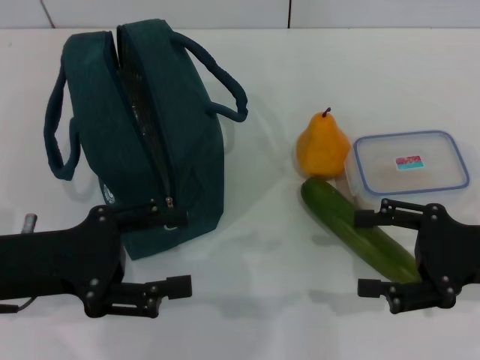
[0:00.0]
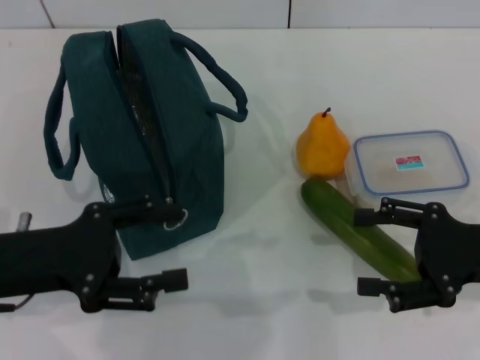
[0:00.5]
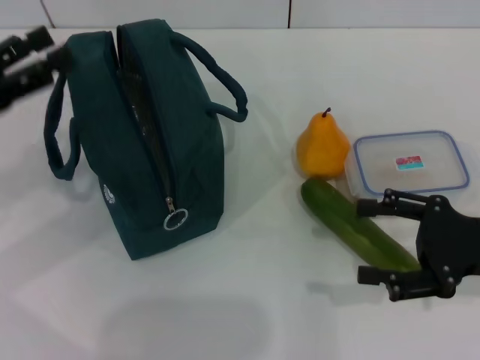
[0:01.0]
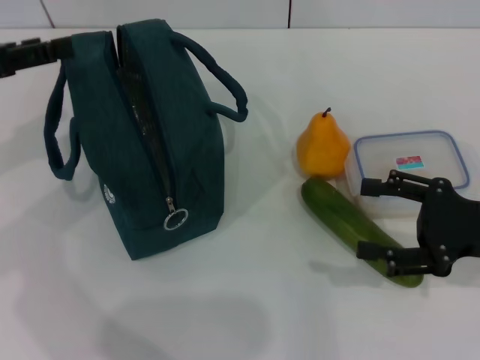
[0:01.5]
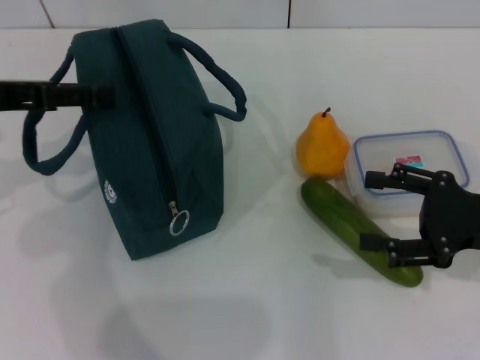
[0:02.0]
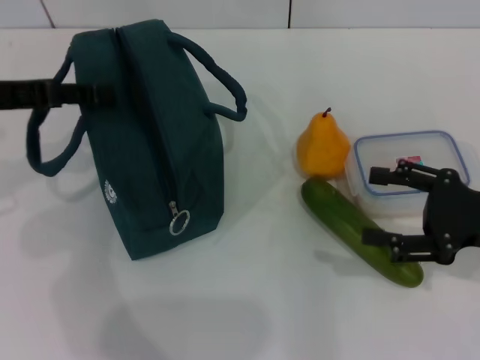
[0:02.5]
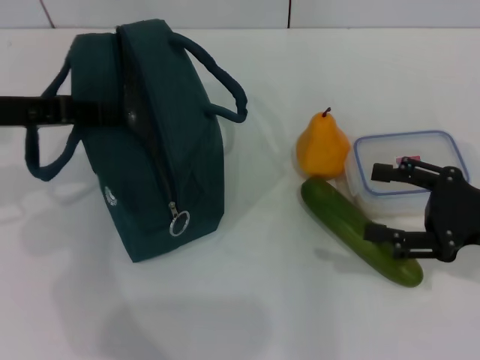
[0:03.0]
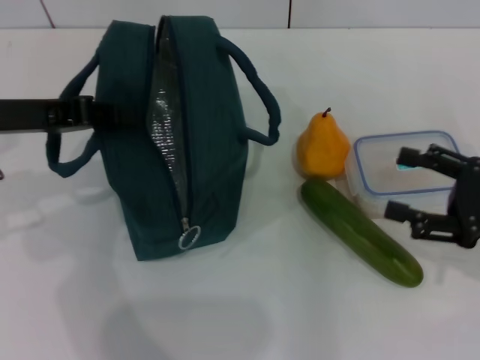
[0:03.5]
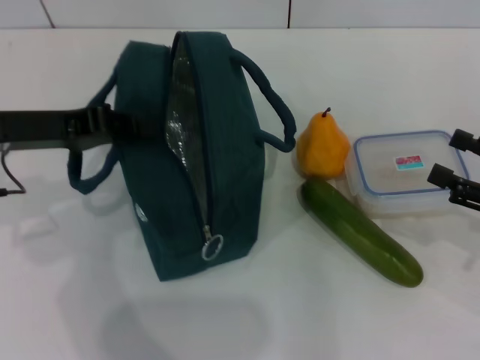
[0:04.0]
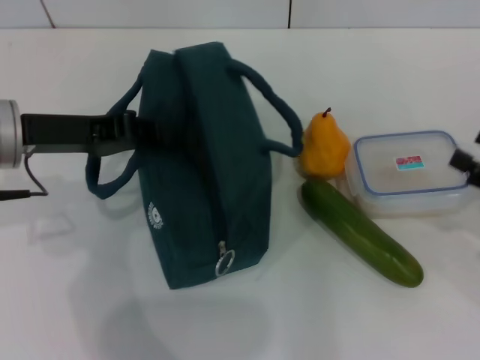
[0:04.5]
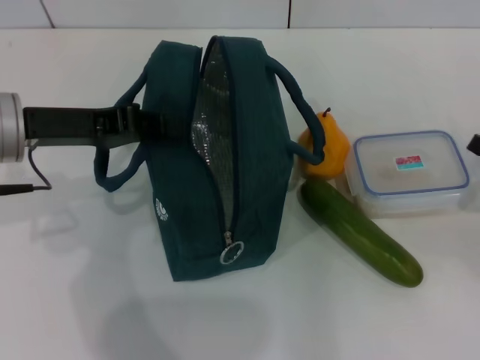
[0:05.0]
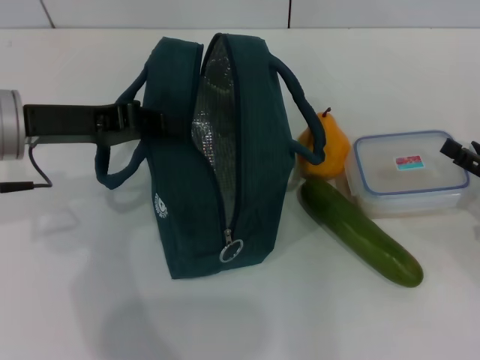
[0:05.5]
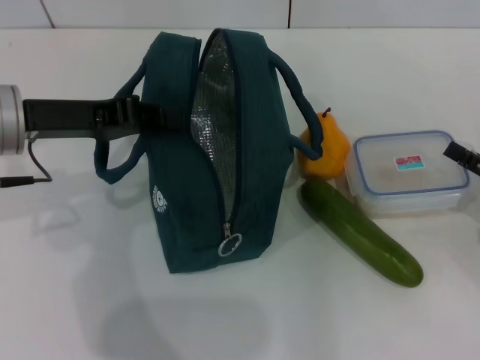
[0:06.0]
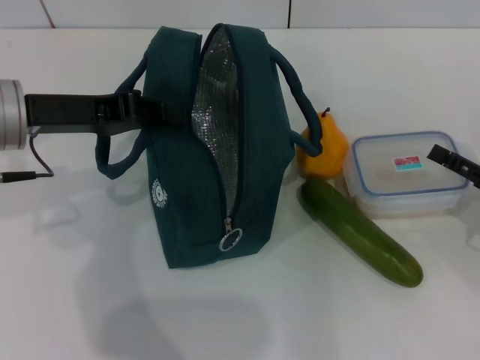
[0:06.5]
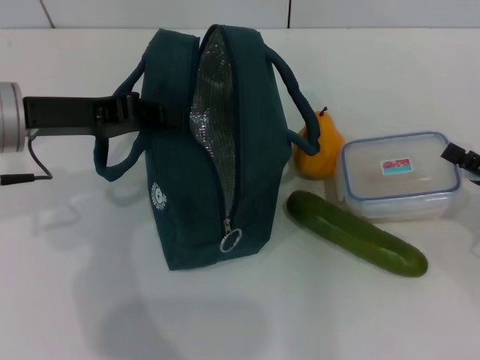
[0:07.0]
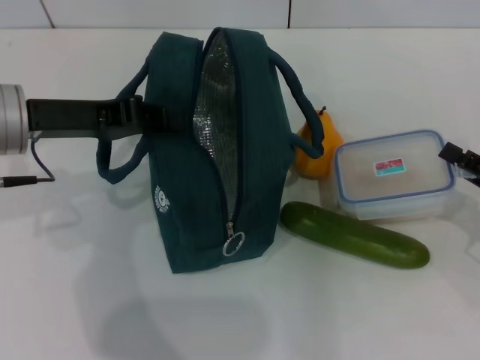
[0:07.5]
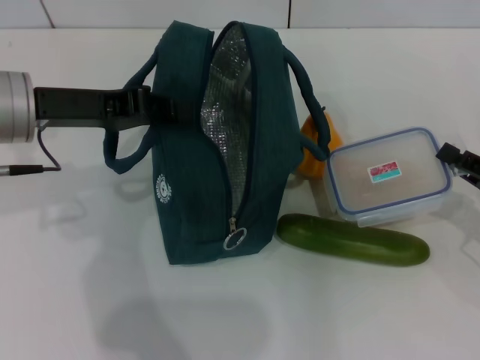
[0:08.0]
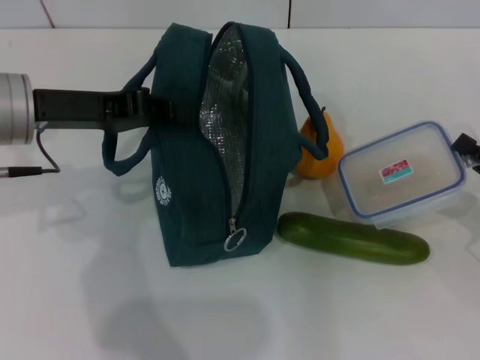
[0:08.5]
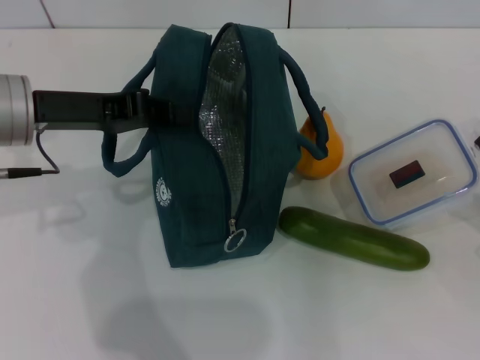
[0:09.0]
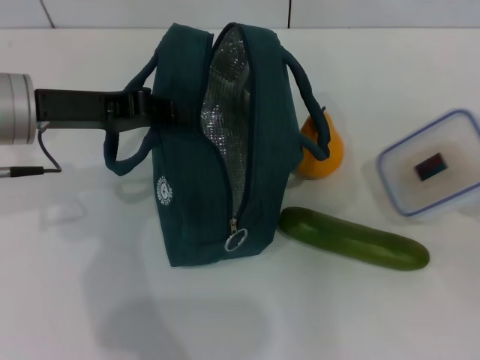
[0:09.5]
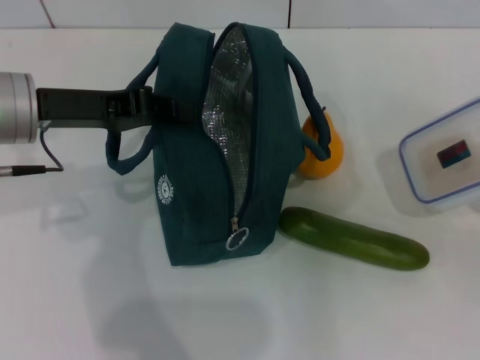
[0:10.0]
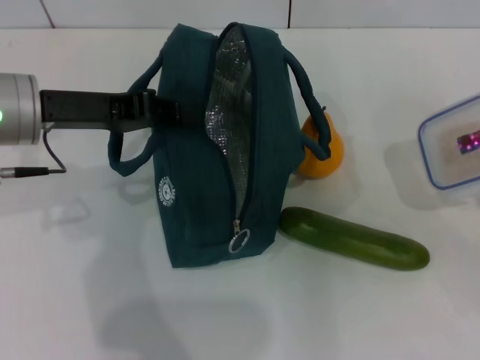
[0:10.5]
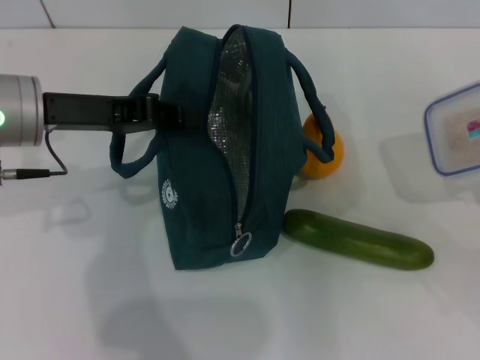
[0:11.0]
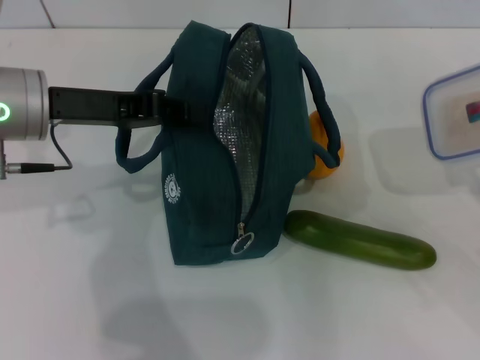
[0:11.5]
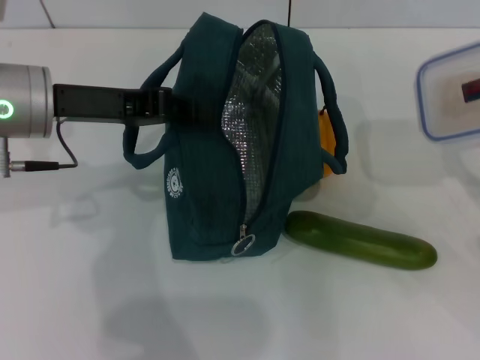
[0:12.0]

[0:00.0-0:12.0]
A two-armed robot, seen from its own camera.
Step, 0:00.0 to 0:03.0: Hold the lunch bag with your left hand.
Step, 0:03.5 to 0:08.0: Pick up the lunch box with your right hand.
0:00.0 to 0:02.0: The left gripper shifts about 15 cm forward and upward.
0:02.0 to 0:04.0: The left gripper closes; the right gripper is displaced to the right by roughly 5 cm.
0:06.0 to 0:08.0: The right gripper closes its fingers.
0:08.0 to 0:10.0: The grippers make only small movements.

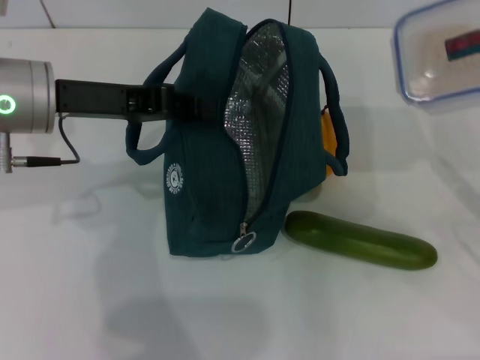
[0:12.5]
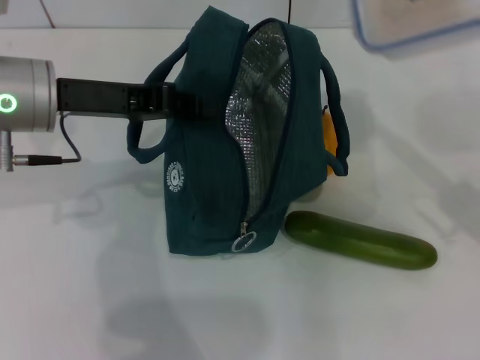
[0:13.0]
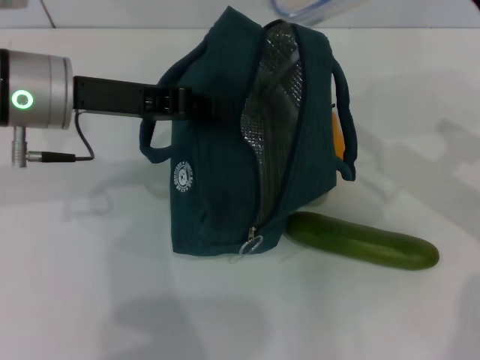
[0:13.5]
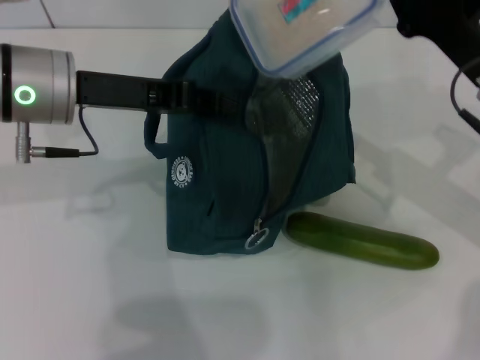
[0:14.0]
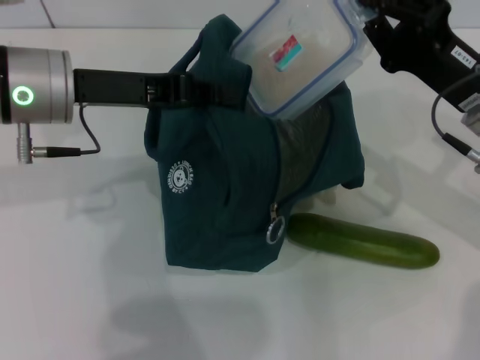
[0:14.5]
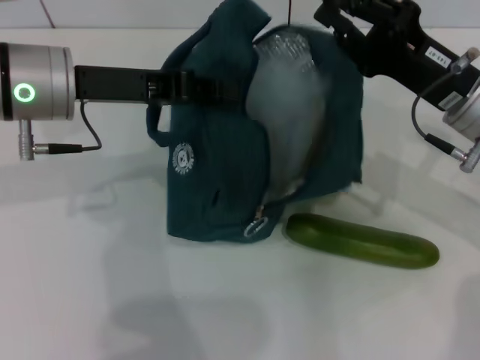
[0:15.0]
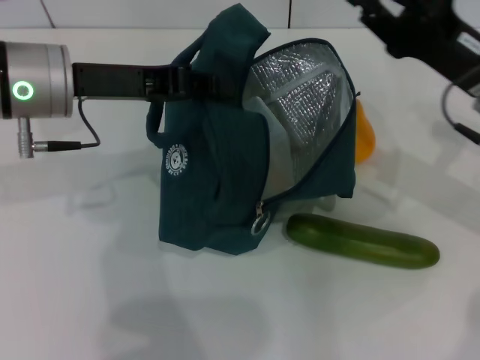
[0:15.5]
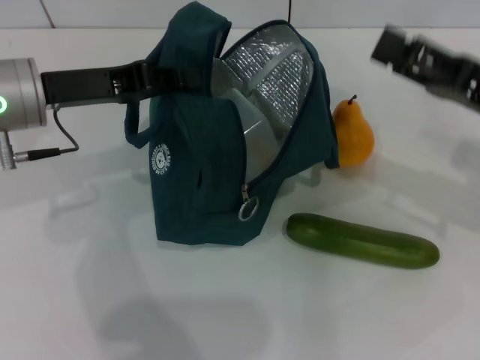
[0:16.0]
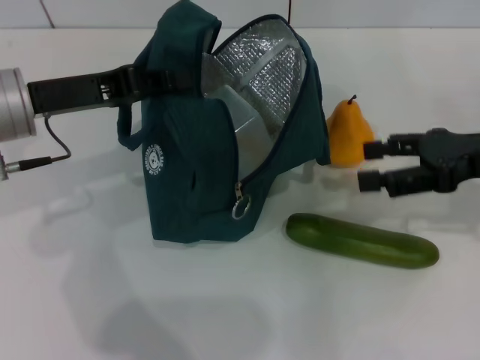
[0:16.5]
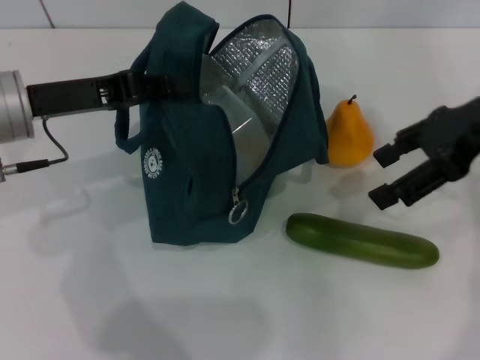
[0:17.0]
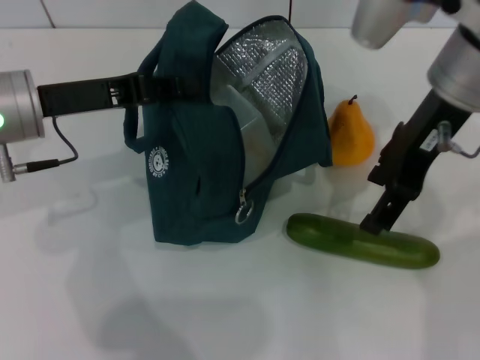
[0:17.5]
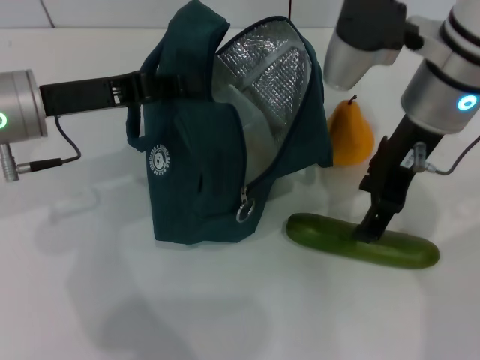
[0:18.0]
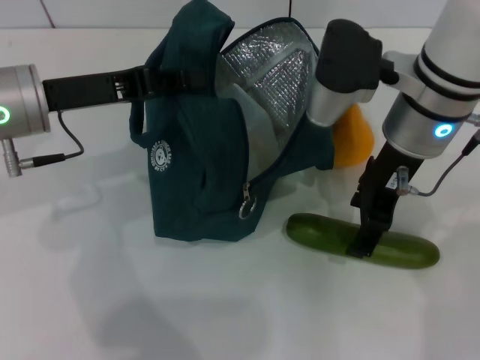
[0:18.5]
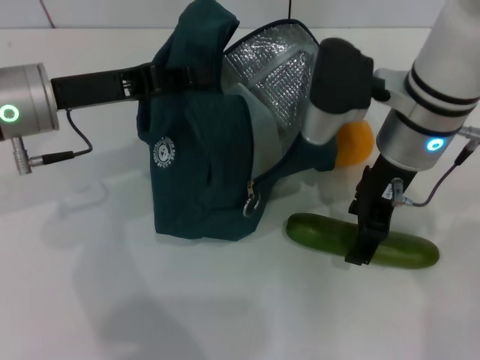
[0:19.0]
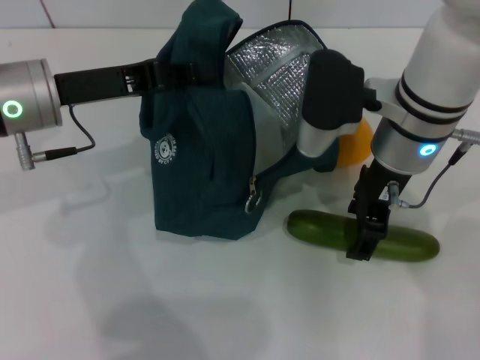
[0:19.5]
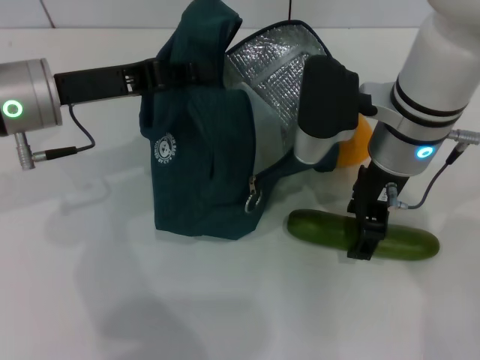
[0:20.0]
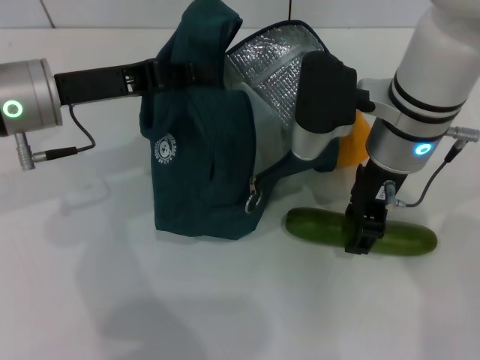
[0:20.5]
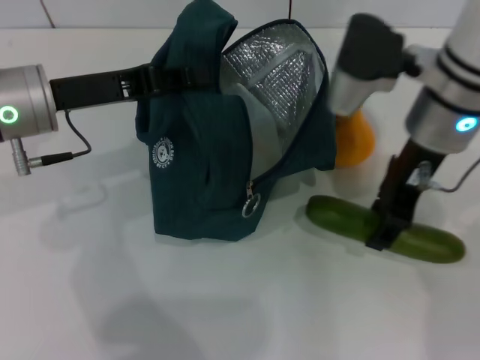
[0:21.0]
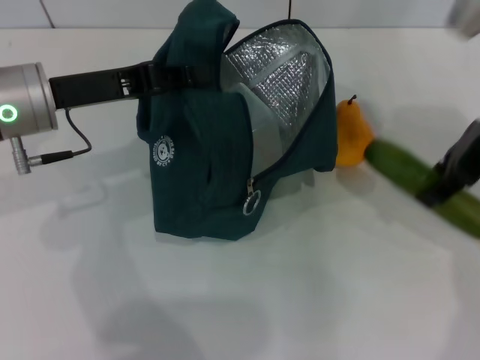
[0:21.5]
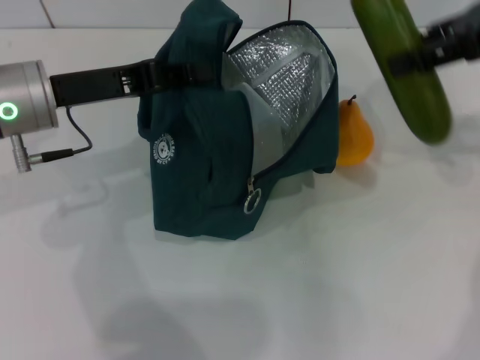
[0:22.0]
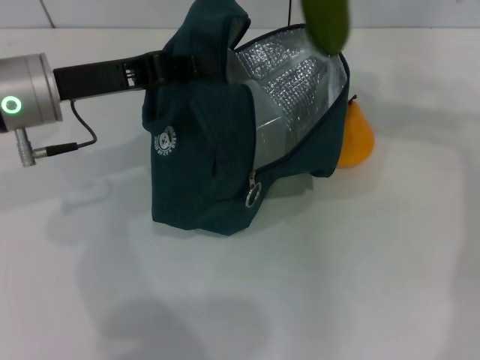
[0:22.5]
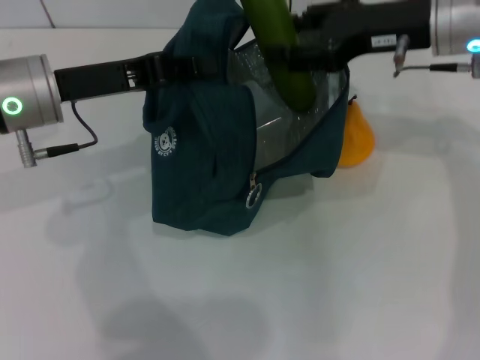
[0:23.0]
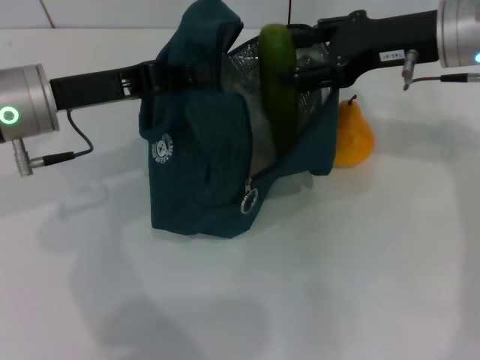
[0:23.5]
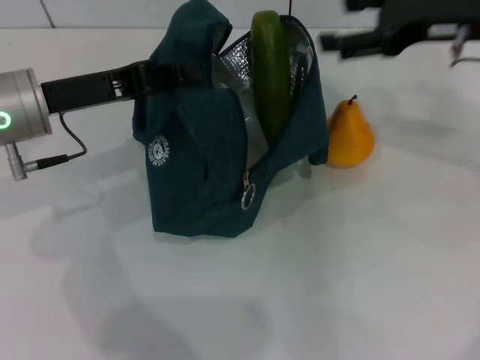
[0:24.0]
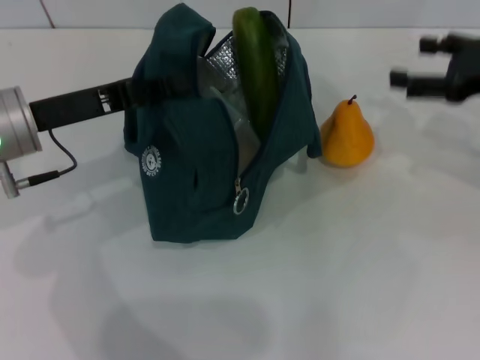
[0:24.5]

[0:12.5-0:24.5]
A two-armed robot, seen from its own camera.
Step, 0:12.5 to 0:15.5: Place the lunch box into the lunch bag with your right hand.
Step, 0:16.0 to 0:20.0: Pick up the cucumber with your right hand.
Step, 0:20.5 to 0:23.5: Put the cucumber into the lunch bag with your right hand.
0:12.5 to 0:14.5: The right gripper goes roughly 15 cm to the left and forward.
0:14.5 to 0:16.5: The left gripper shifts by approximately 5 cm, while the right gripper moves to the right, some 5 cm, and opens.
0:16.5 to 0:18.5: The right gripper goes some 15 cm to the left.
0:20.5 to 0:22.5: The right gripper moves upward and to the right, roughly 15 cm.
0:22.5 to 0:24.5: The right gripper travels downward and to the right by approximately 15 cm.

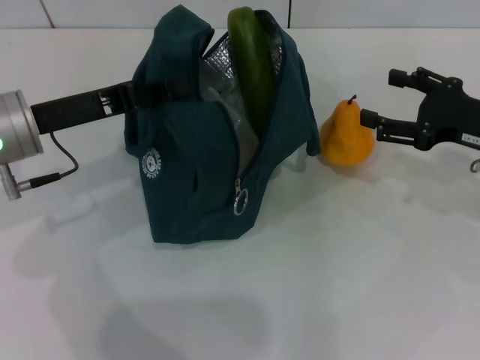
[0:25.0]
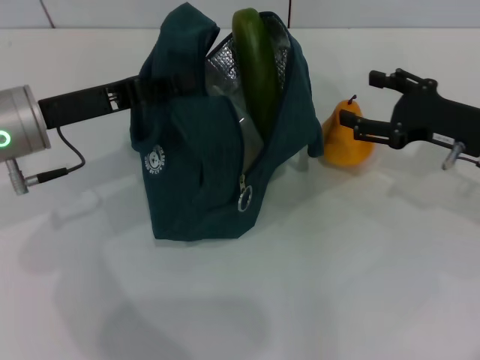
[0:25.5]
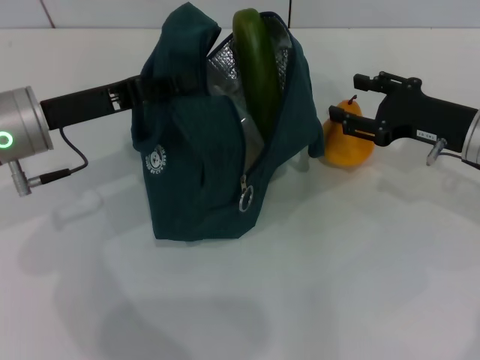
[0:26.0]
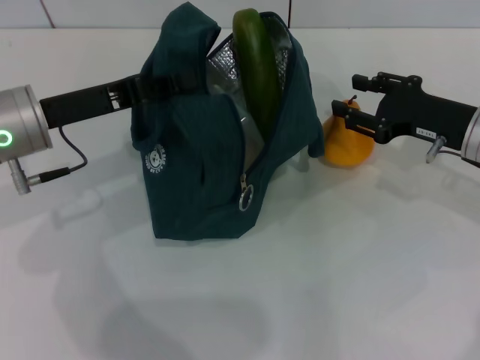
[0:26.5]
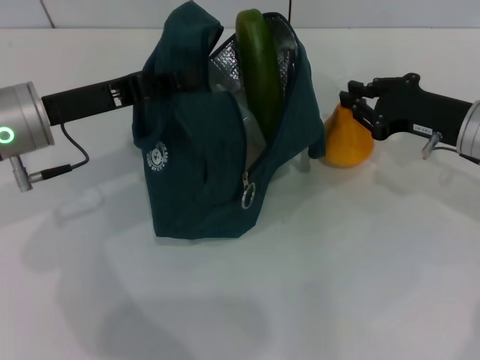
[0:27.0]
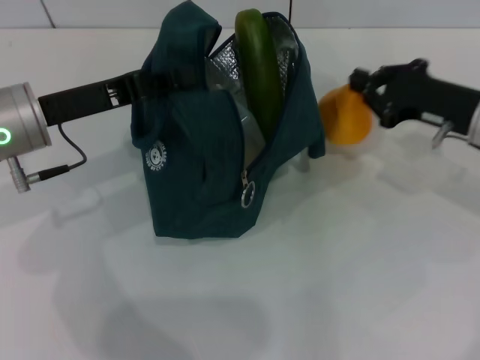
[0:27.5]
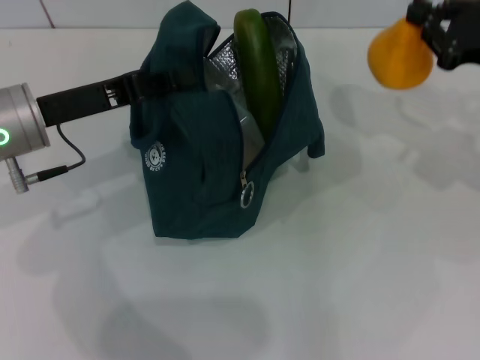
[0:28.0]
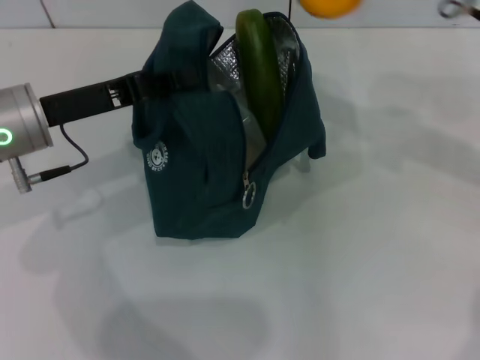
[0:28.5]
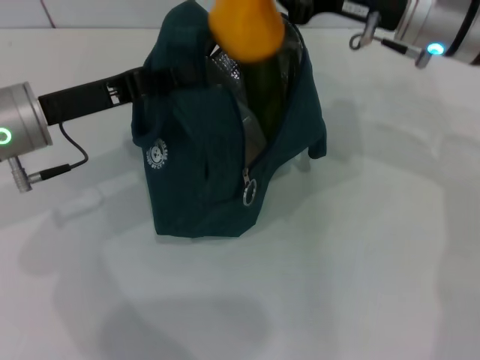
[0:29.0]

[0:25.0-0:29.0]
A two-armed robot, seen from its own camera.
Step, 0:25.0 to 0:27.0: Grab the pear with your right hand.
0:25.0 to 0:27.0: The right gripper ends up about 5 cm from where it was, and closes its fingers.
0:27.0 to 0:29.0: The right gripper shifts approximately 15 cm upward and to the left.
